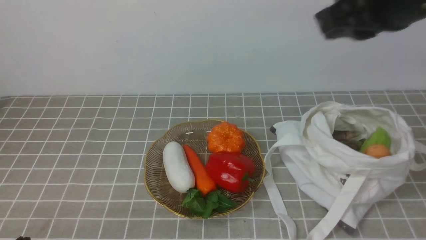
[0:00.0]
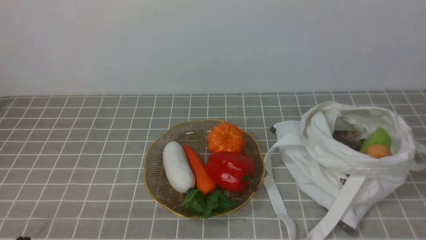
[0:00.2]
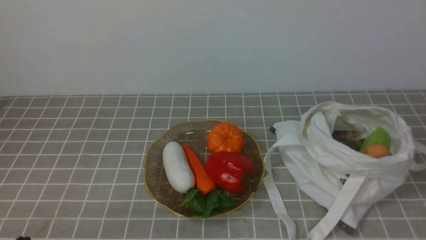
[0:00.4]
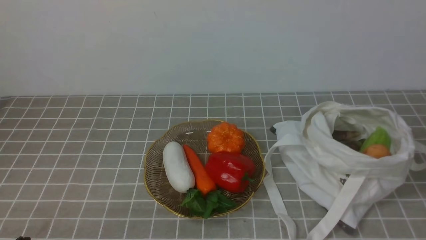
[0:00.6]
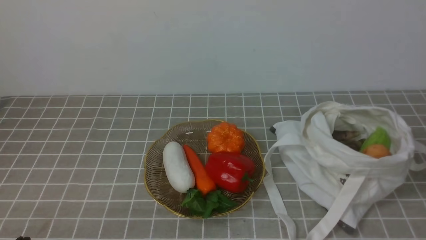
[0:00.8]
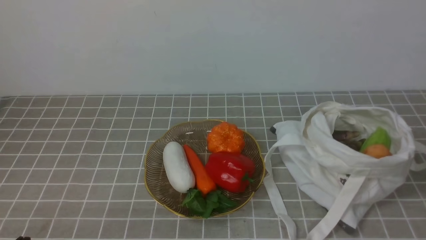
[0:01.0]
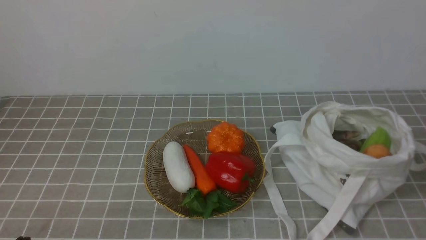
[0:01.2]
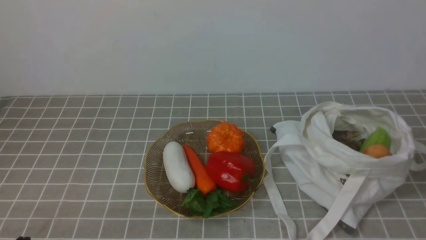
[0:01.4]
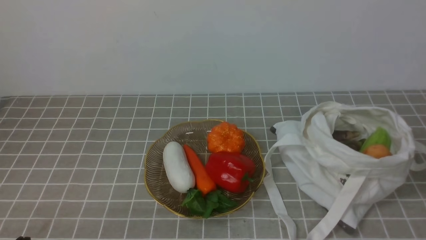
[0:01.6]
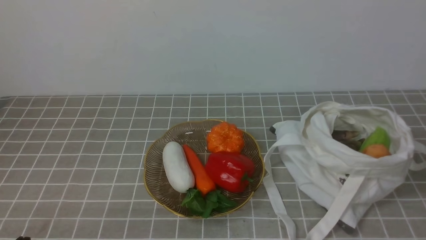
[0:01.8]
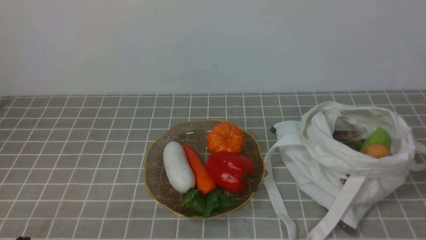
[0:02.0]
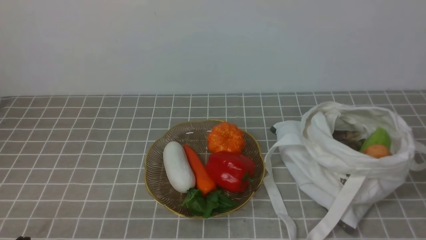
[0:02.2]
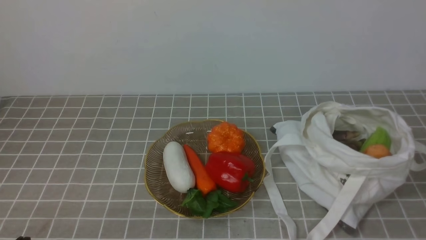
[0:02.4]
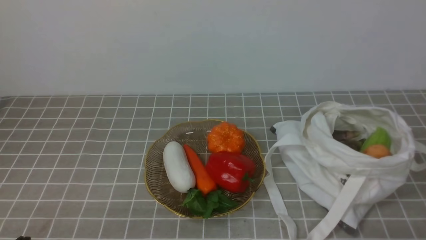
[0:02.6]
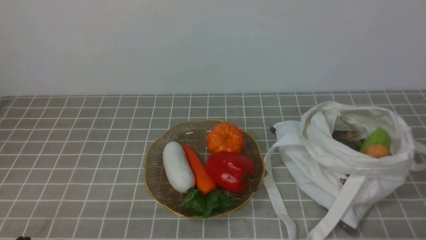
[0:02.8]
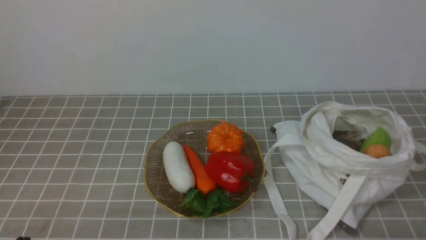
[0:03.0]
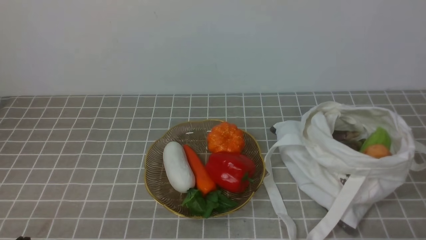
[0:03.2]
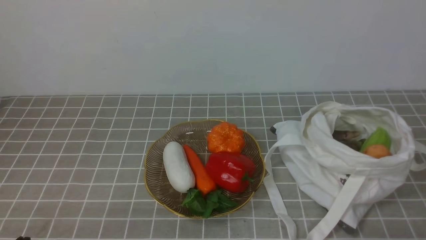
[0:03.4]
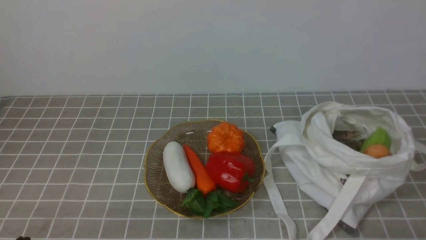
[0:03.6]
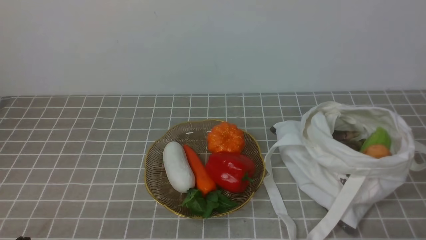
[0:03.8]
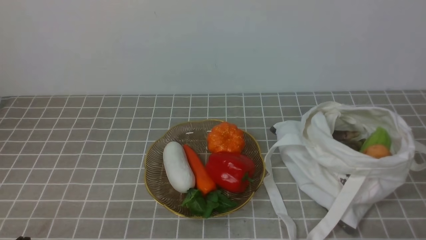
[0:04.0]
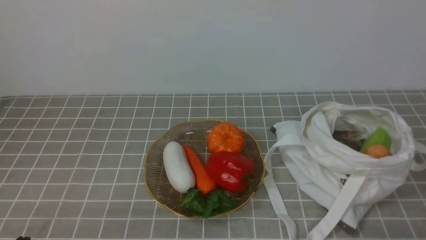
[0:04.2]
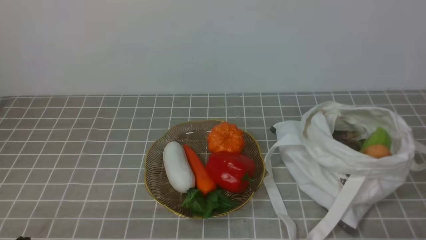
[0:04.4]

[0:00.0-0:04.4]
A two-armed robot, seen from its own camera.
Task of the whole recording: take vegetables from bag on grey coffee tablecloth place on plate.
0:00.0 to 0:01.4: The right gripper goes some 25 cm backward, downward and to the right.
0:03.0 to 0:04.4: The two grippers keep their place.
